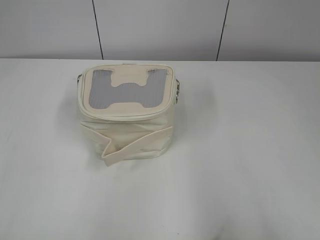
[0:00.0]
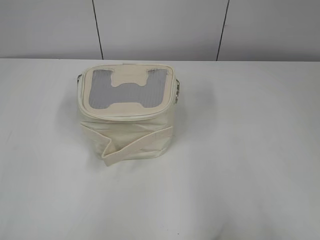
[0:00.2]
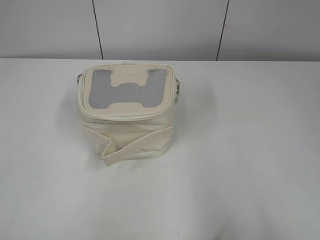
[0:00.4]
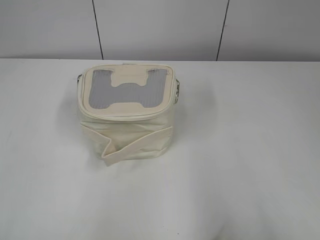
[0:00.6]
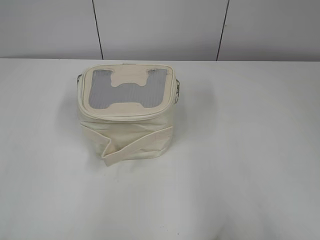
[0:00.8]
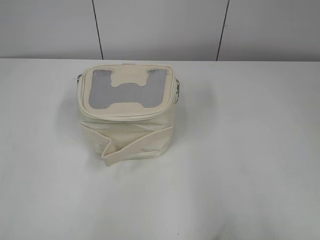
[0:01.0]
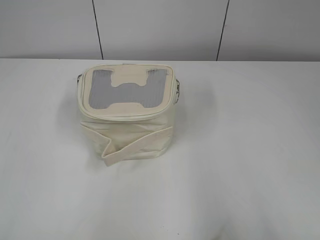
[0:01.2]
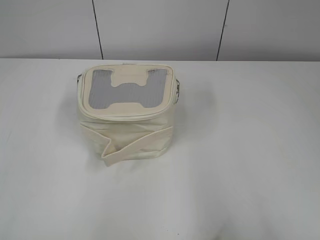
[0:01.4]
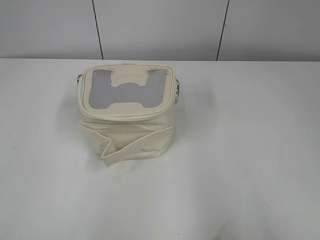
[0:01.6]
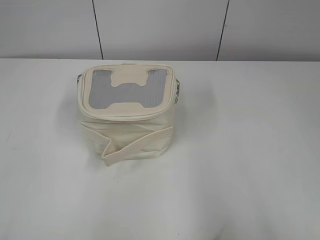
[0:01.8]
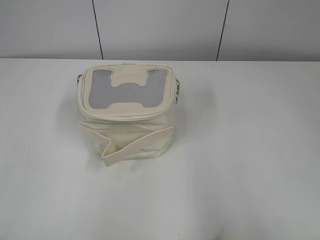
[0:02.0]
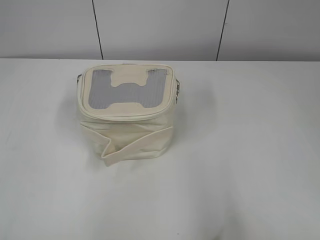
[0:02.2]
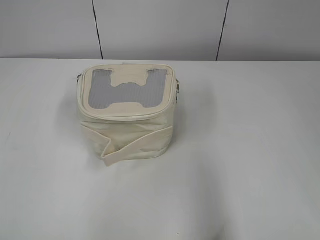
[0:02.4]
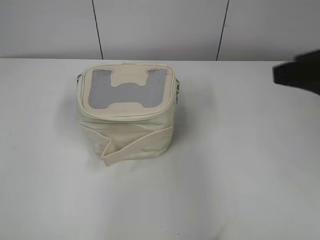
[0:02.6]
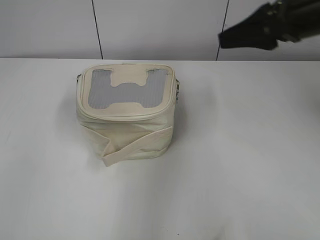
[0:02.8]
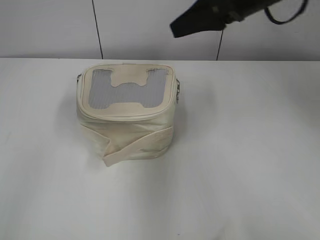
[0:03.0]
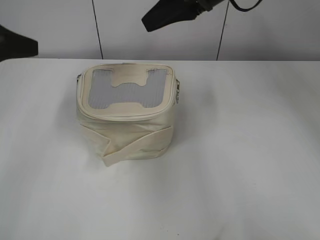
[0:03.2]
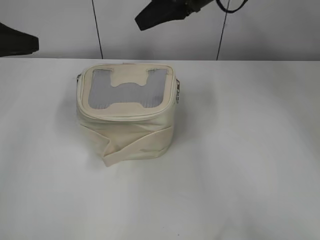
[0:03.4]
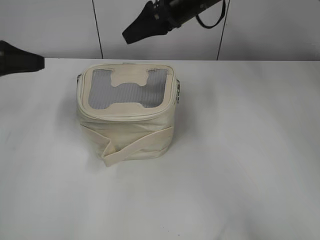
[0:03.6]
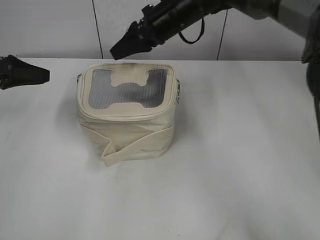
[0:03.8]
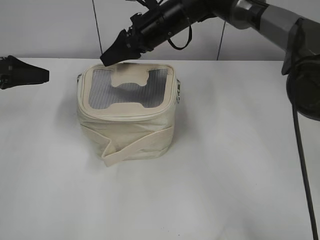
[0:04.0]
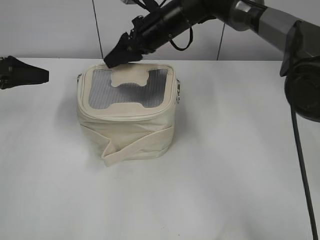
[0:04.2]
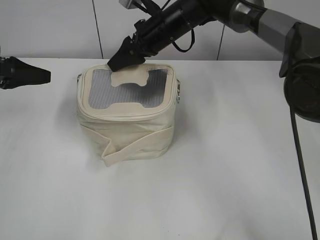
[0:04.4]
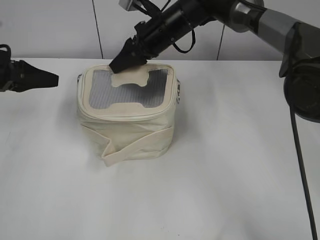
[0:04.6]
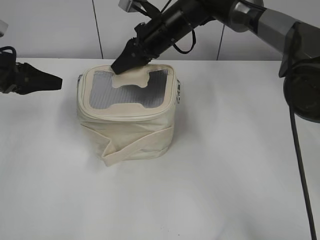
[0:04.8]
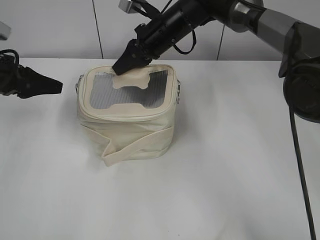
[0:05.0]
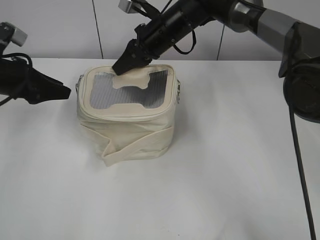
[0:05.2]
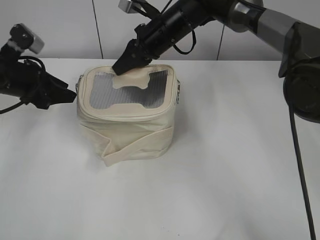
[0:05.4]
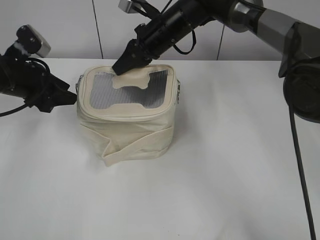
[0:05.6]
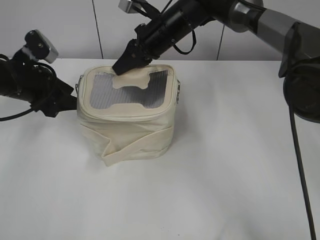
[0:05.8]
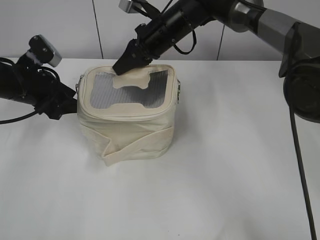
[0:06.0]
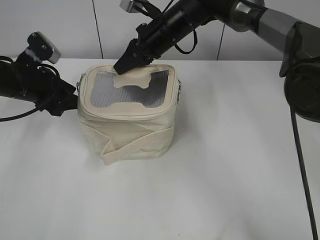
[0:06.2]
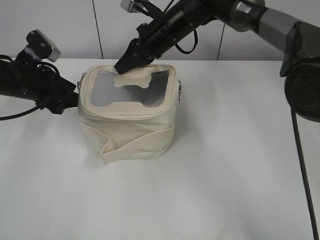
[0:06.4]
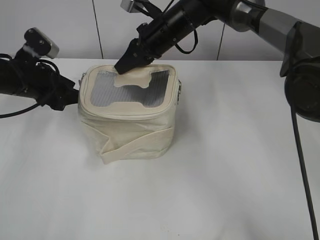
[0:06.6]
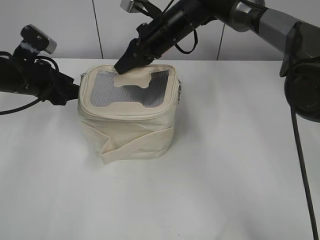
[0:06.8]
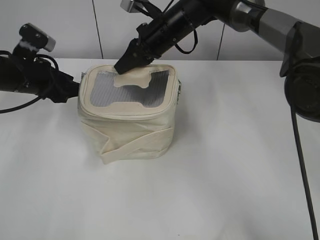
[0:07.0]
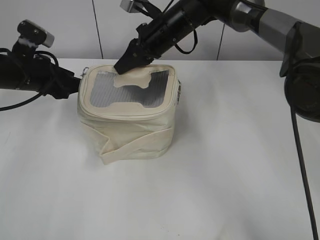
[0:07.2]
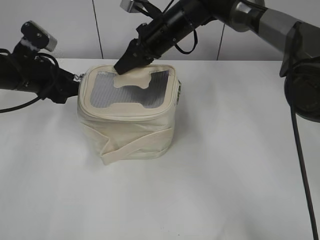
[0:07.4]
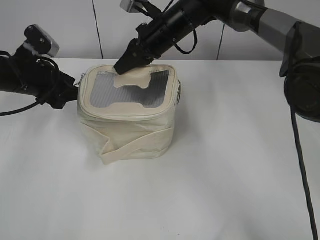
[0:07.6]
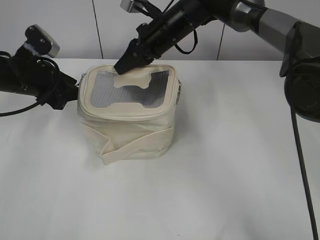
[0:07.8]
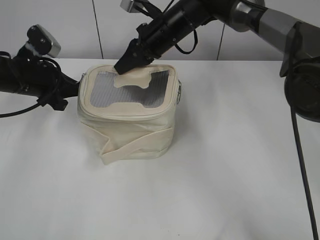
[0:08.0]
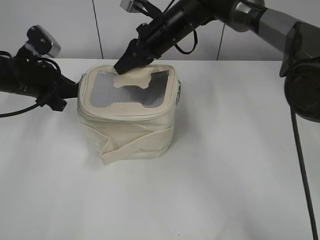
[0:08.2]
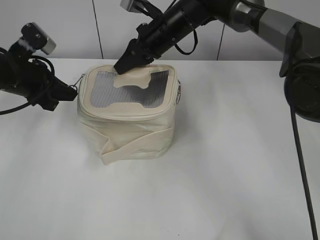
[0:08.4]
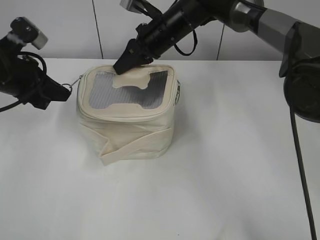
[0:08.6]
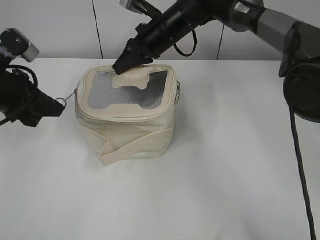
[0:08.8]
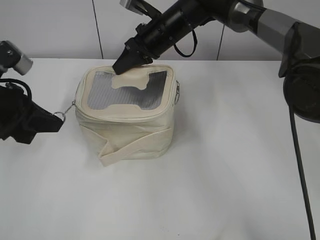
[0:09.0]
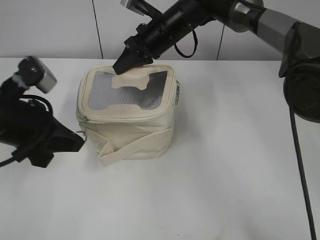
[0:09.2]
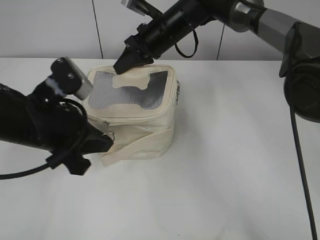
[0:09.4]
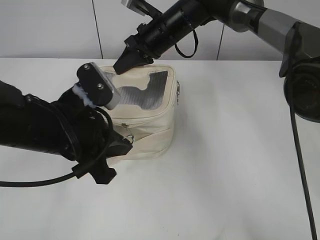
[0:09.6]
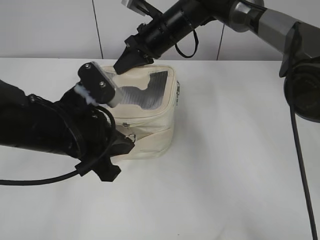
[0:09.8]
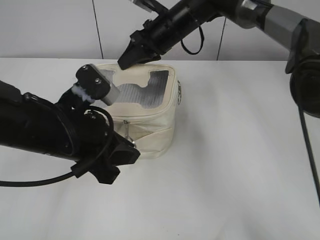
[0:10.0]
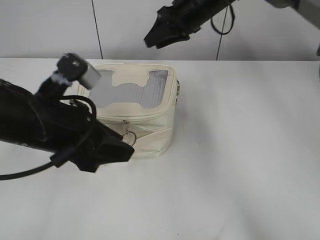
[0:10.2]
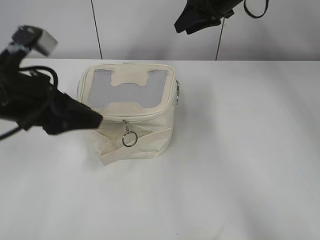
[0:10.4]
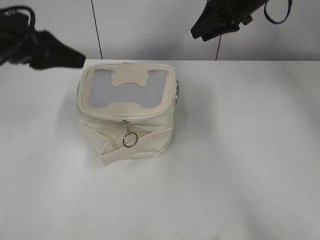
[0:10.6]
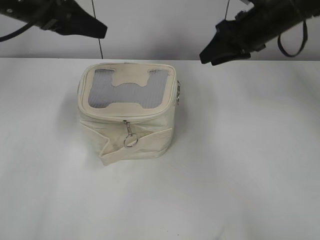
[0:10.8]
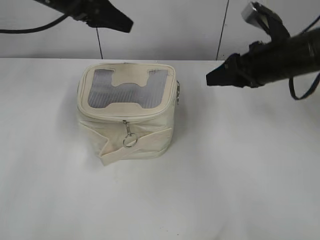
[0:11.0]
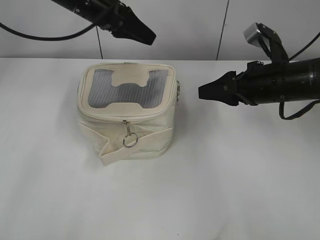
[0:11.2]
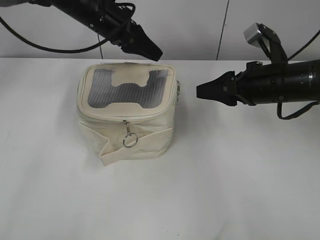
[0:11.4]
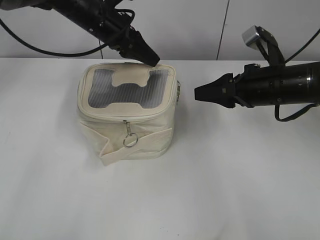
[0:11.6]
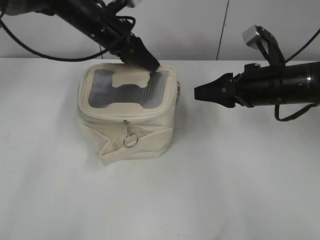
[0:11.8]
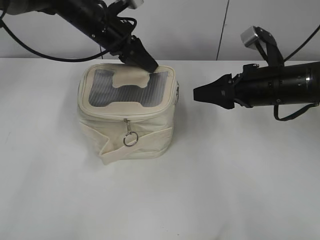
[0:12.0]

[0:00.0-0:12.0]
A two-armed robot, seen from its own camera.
Step, 0:00.0 to 0:09.8: Zip up the bag with your left hand.
0:01.6 to 0:03.0: The right gripper heads forward, covering about 35 cm; the left gripper travels forward by about 15 cm.
0:03.0 to 0:04.4: The left gripper travels forward and downward by approximately 20 cm. The right gripper moves to the left, forward and downward, approximately 20 cm.
0:04.4 to 0:06.0: The left gripper travels to the right by approximately 5 cm, and opens its fingers; the right gripper closes.
0:06.0 to 0:07.6: The grippers move only a little.
0:07.6 to 0:09.0: The left gripper is displaced backward by about 10 cm, and closes.
0:09.0 to 0:10.4: The left gripper shifts about 10 cm to the right and backward, and opens up; the right gripper moves to the right and upward, some 10 cm, and opens up.
0:10.4 to 0:12.0: The left gripper moves forward, approximately 25 cm. Meanwhile the right gripper goes some 20 cm backward, downward and to the right.

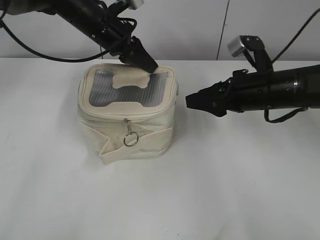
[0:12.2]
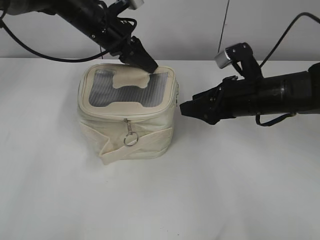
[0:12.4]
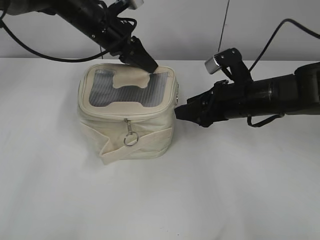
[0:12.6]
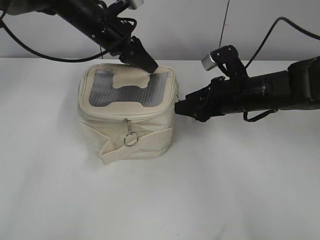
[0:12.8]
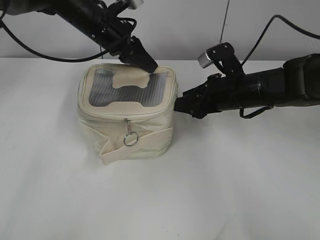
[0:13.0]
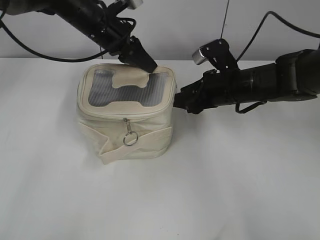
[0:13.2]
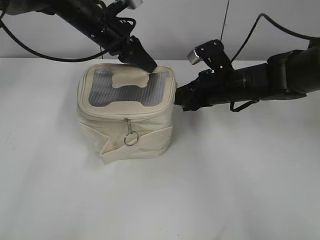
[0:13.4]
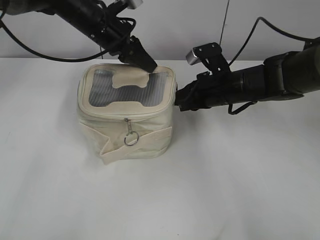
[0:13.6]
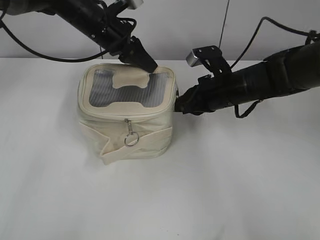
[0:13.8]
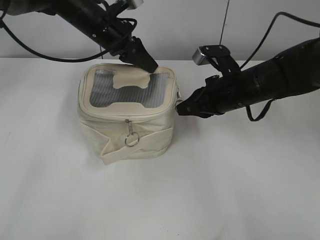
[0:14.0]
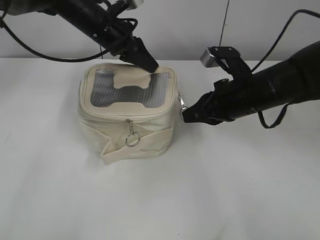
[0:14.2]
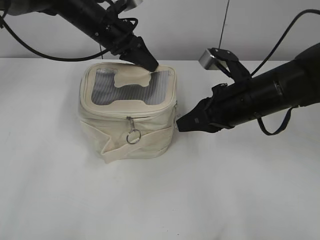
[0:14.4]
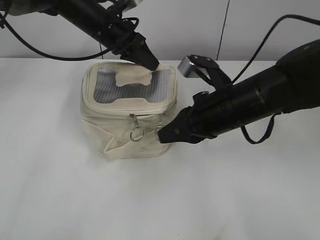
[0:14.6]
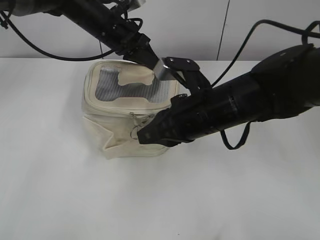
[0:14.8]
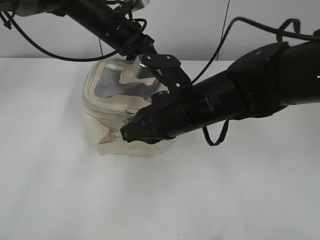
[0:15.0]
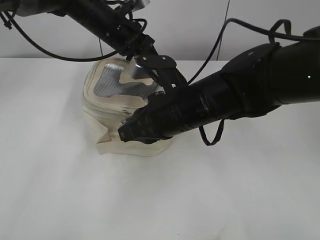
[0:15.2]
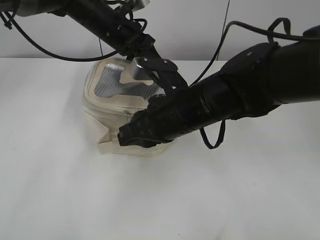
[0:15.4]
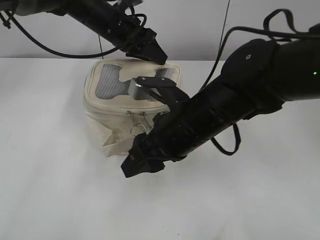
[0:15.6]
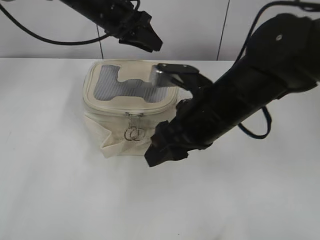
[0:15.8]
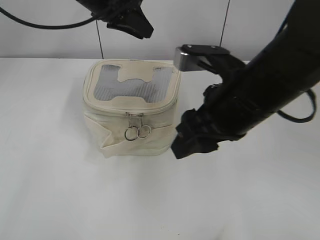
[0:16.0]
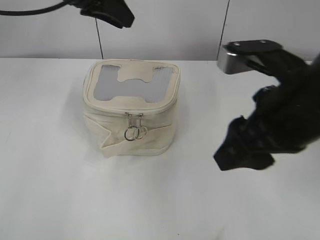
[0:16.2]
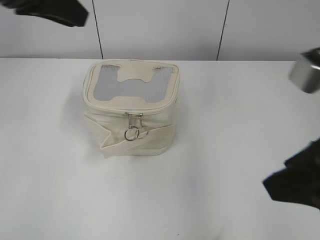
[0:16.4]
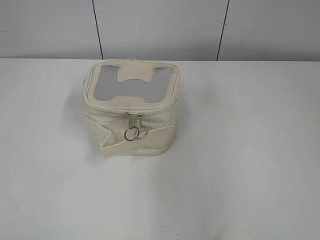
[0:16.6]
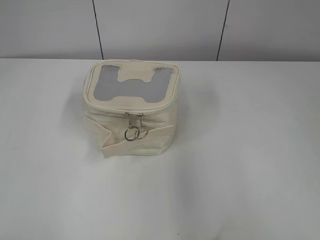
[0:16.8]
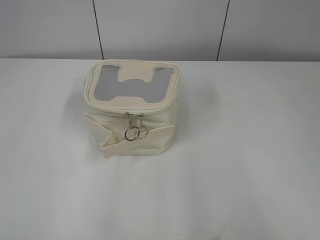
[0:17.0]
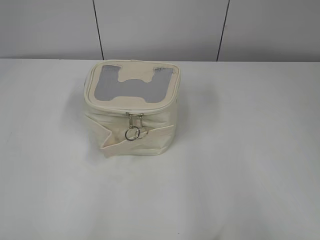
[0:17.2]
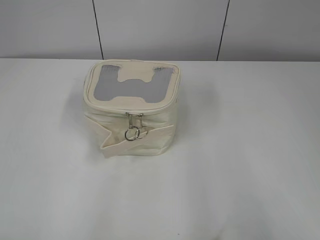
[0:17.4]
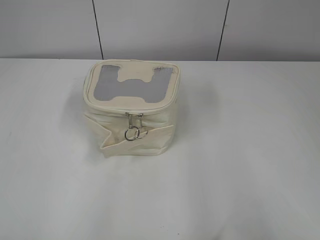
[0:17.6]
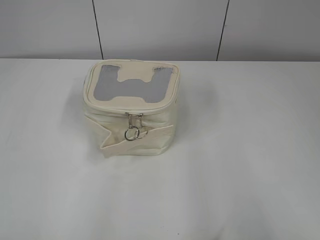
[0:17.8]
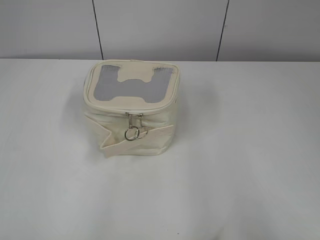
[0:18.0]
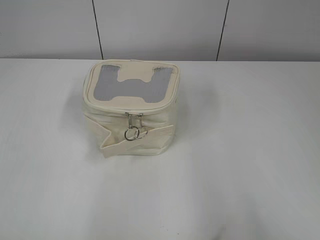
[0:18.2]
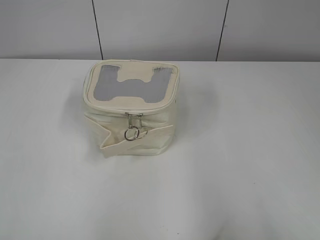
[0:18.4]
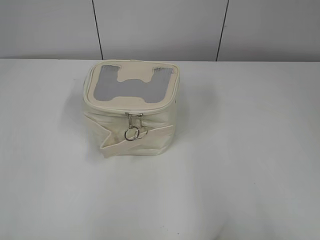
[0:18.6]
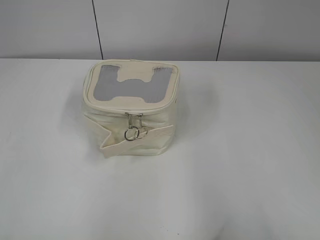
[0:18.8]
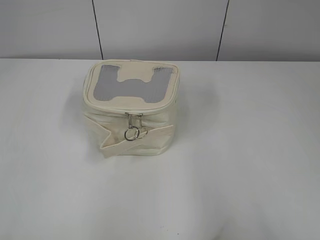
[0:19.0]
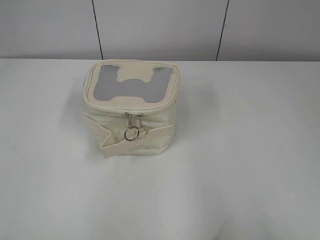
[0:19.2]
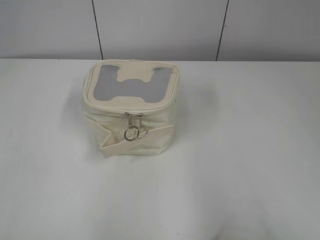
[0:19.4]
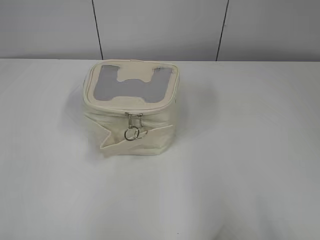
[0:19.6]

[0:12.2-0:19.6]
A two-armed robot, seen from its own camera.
Step, 0:12.2 to 0:15.4: Zip up the bag with your right hand.
0:12.2 to 0:13.6: The right gripper heads forward, covering approximately 5 cm, and closes up.
0:13.6 to 0:15.2: The right gripper shifts some 15 cm backward, to the left and upward.
0:15.2 to 0:16.6: The right gripper moves to the right, backward and upward, about 30 cm, and opens. The left gripper shifts roughly 35 cm backward, upward and to the left, and opens its fingers.
0:16.6 to 0:18.2: The right gripper is displaced backward and to the right by roughly 10 cm; the left gripper goes about 25 cm backward, to the left and downward.

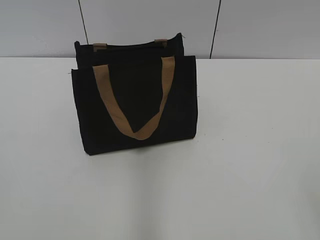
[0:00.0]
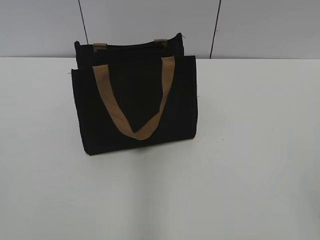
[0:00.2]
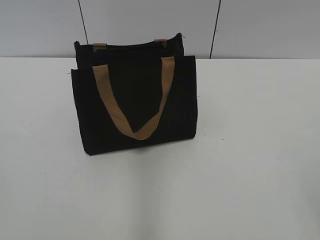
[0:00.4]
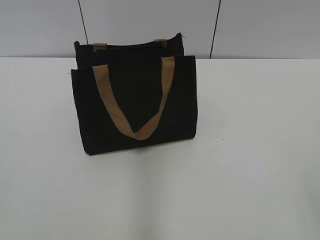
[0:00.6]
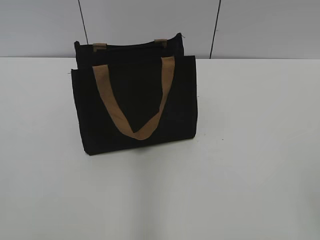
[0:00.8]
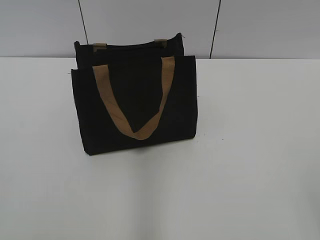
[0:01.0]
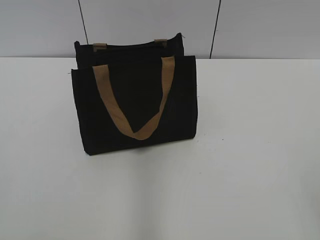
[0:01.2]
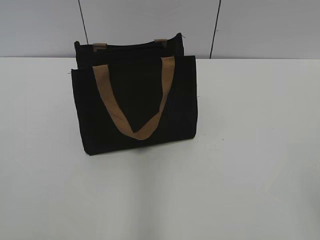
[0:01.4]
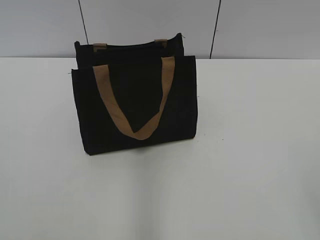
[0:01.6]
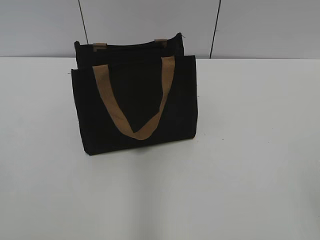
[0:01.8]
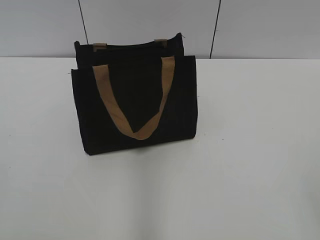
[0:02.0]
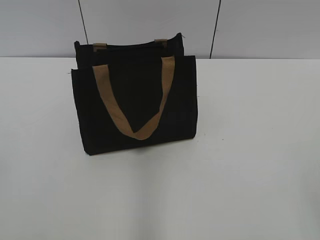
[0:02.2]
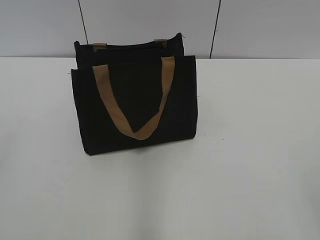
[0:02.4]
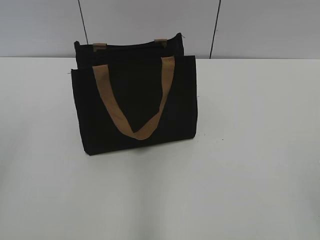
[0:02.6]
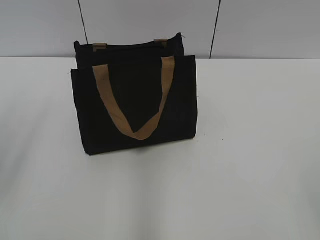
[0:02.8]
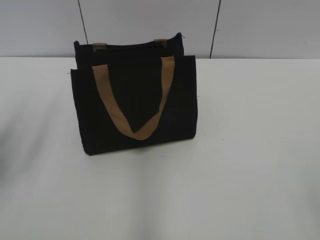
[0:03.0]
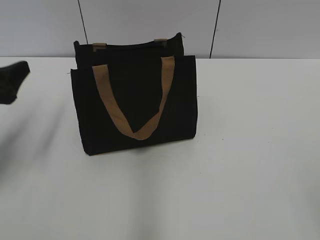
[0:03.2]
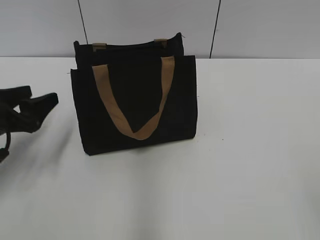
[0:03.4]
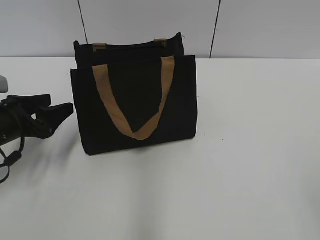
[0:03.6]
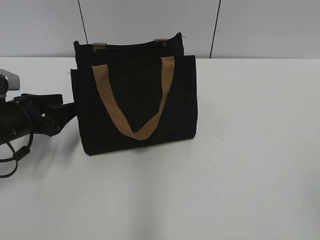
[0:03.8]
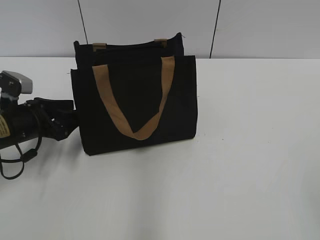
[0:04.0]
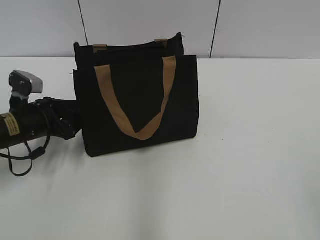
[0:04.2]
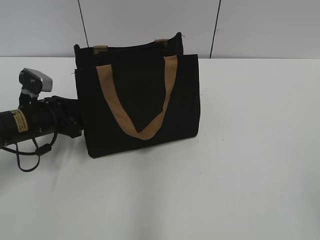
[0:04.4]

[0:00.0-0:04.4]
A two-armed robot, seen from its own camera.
0:01.4 to 0:03.0: The left gripper travels forward by roughly 20 cm, and opens.
0:03.0 to 0:04.4: The left gripper shifts about 20 cm downward, forward and to the right.
